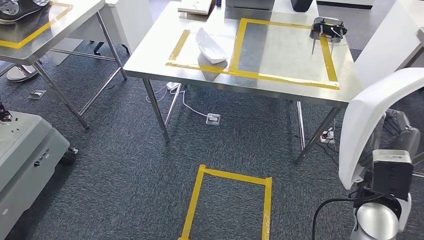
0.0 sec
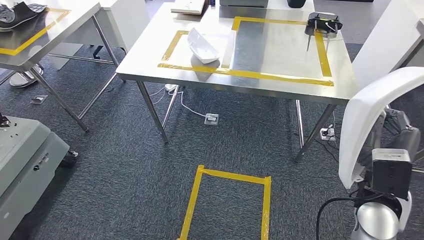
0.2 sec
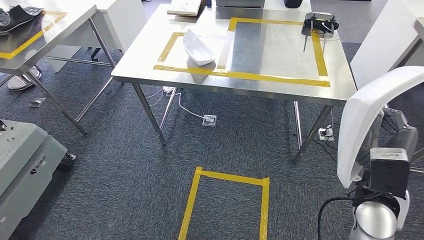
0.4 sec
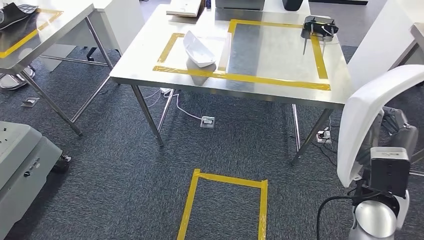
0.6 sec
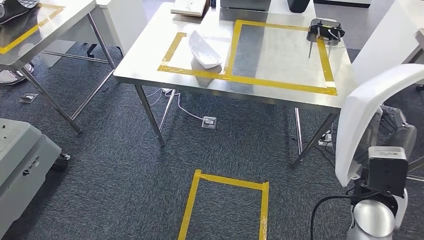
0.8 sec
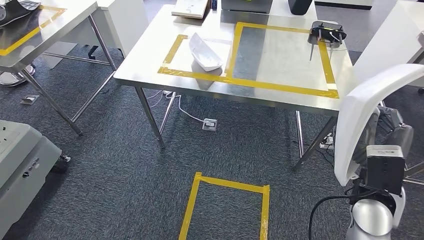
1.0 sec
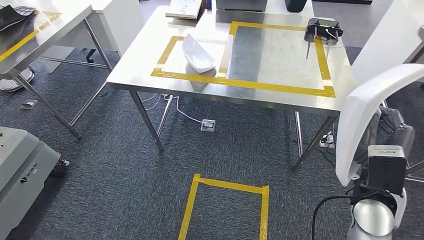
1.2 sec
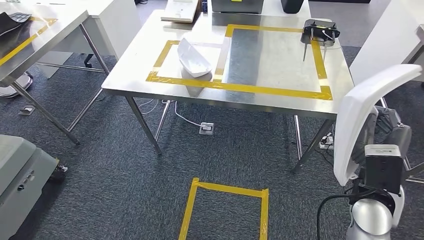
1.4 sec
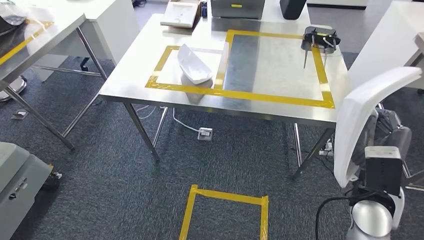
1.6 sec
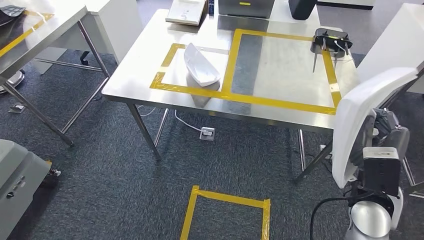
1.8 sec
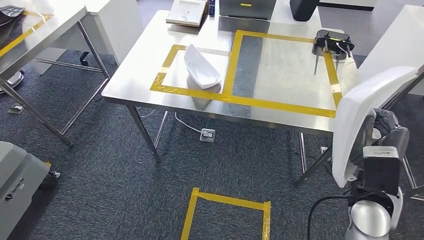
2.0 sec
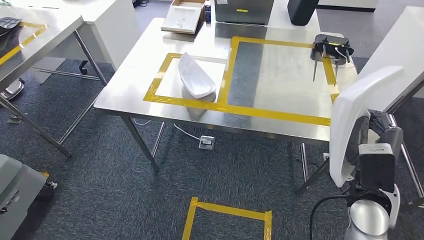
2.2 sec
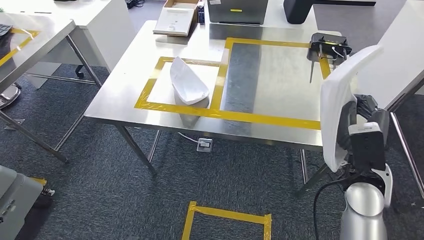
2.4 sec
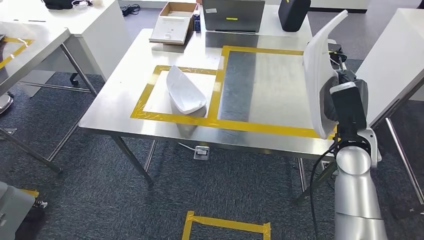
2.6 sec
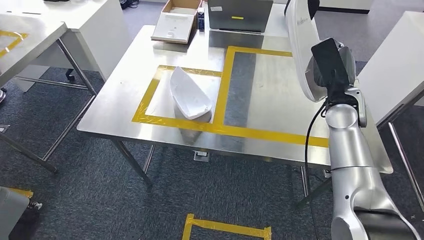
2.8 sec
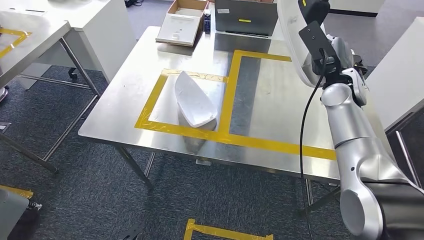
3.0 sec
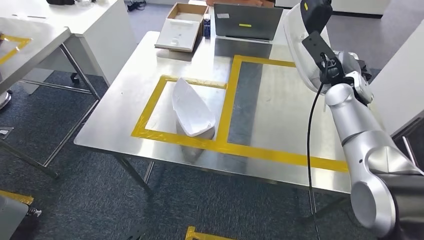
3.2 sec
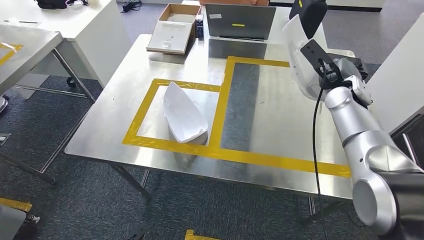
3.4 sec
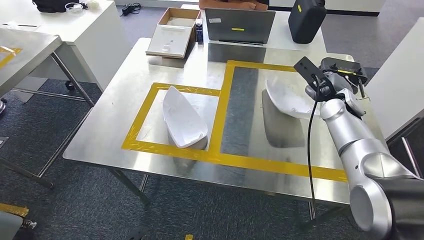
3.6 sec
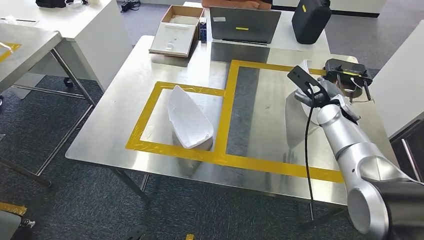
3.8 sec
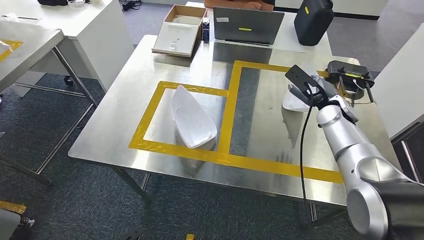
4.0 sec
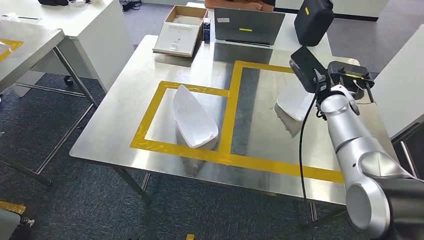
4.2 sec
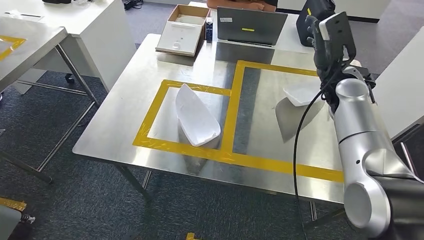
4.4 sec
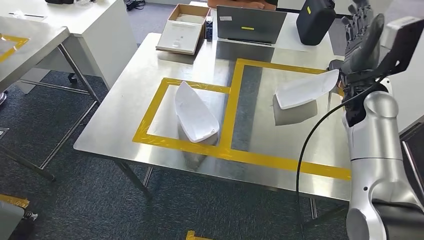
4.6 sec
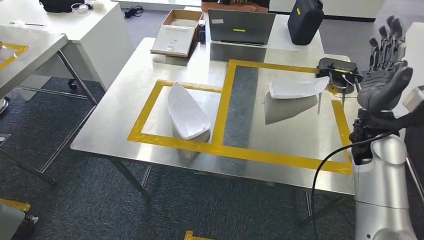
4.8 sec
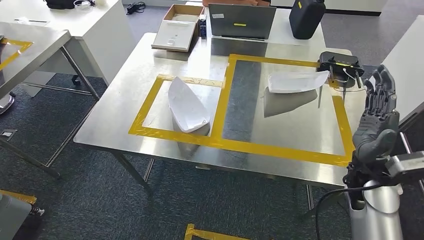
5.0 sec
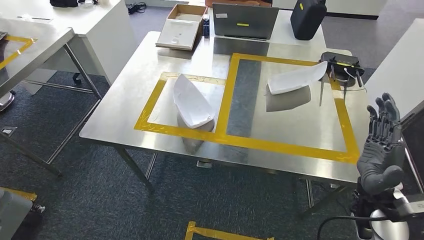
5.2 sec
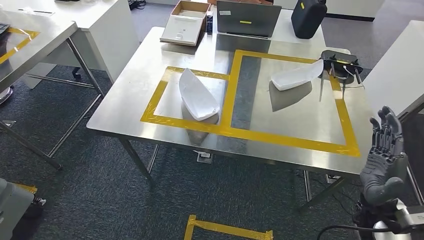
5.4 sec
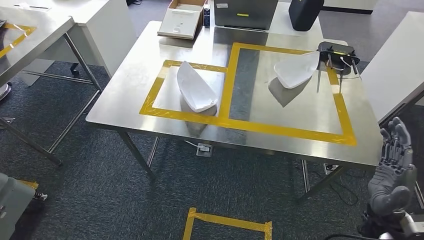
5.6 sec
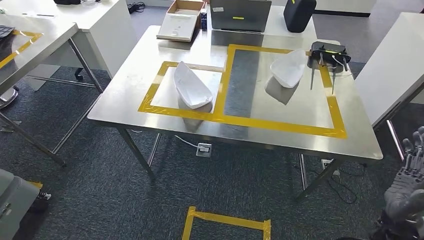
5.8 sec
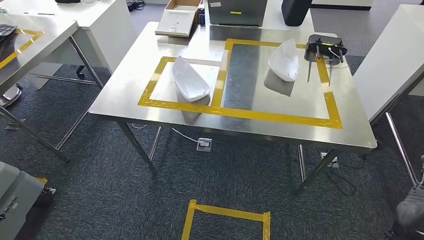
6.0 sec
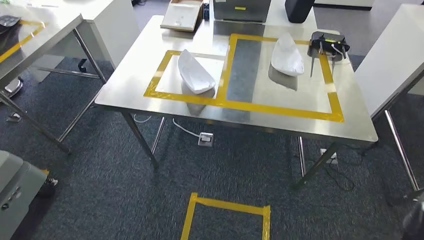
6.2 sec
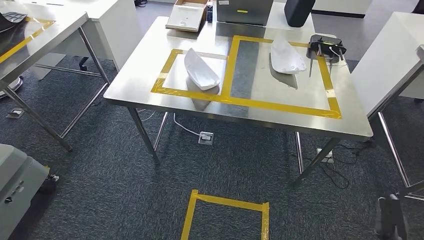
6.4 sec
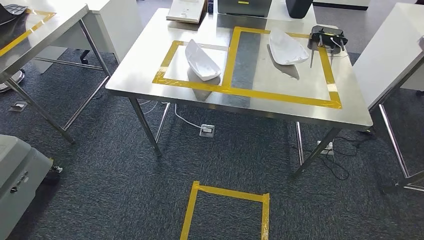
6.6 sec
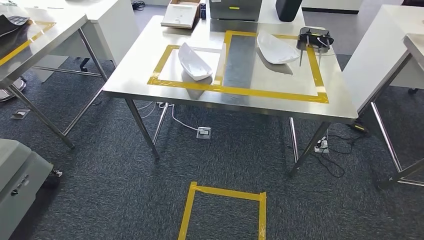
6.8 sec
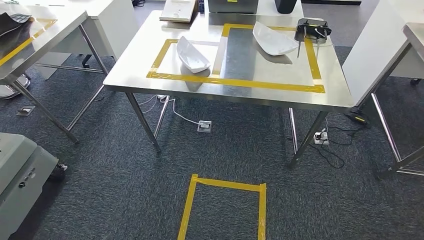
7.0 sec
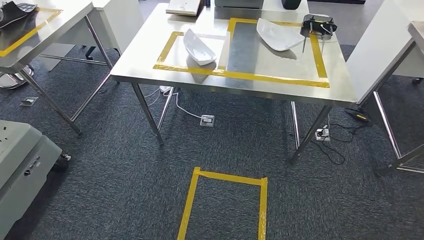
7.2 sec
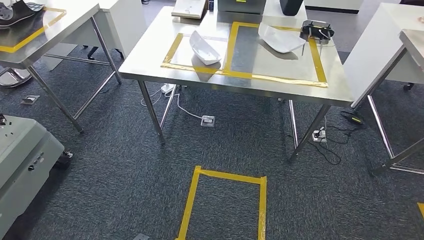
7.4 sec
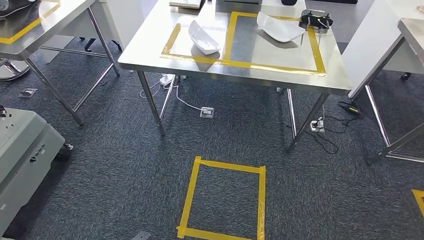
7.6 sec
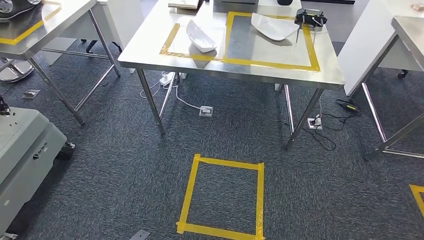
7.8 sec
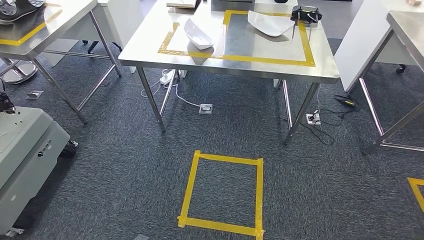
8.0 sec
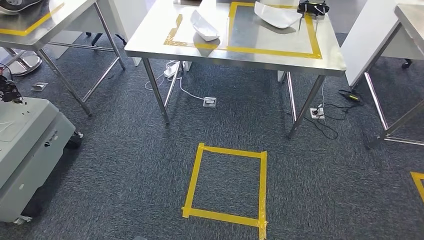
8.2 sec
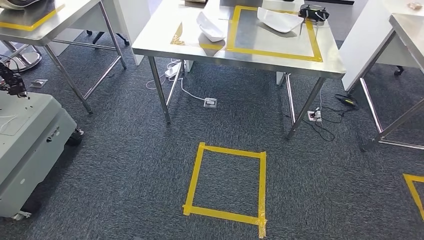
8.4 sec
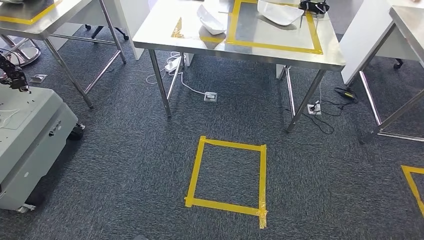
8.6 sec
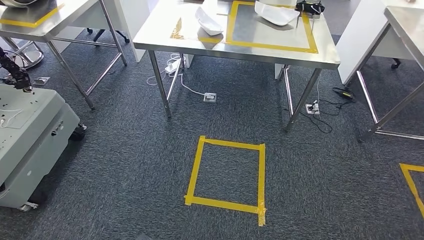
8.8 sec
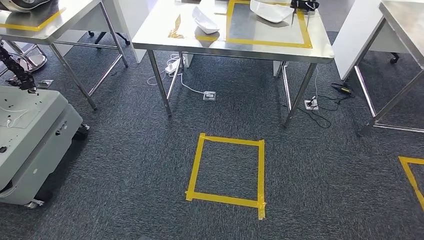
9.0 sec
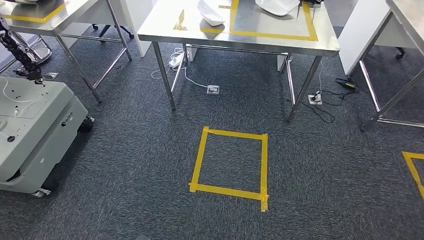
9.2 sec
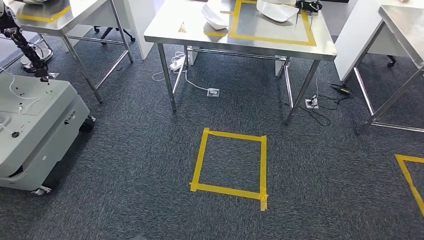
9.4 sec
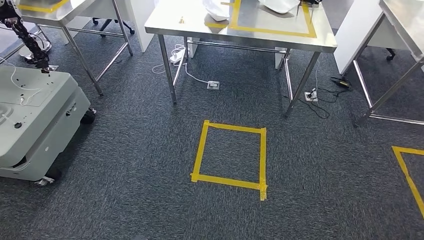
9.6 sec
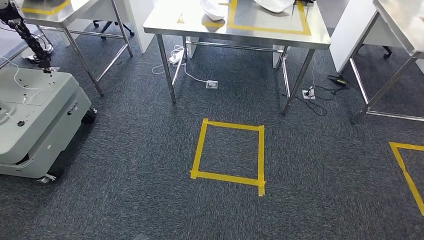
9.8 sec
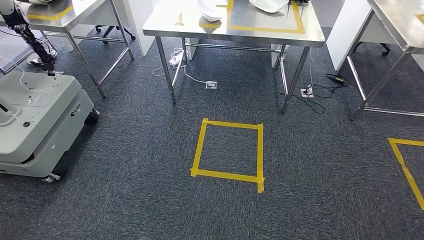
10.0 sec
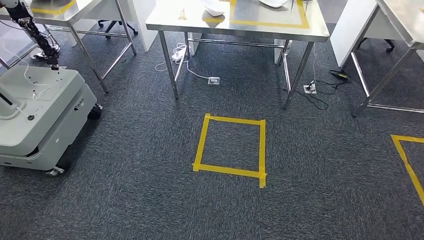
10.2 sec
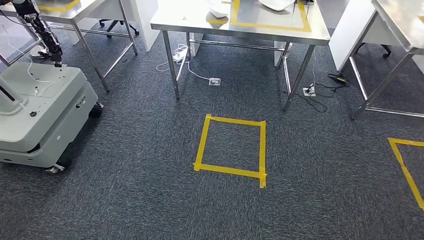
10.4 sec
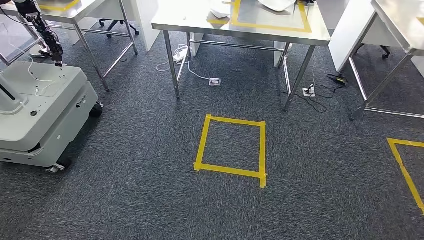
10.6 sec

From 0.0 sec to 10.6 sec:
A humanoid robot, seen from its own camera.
Step, from 0.0 sec to 5.4 sec: Insert the small parts into the corresponding holes on the workbench.
Step, from 5.6 sec to 10.4 sec: Move to the initial position at the workbench.
